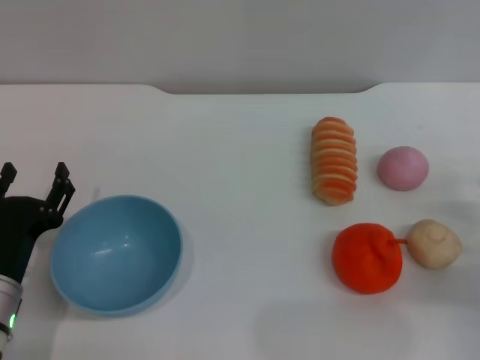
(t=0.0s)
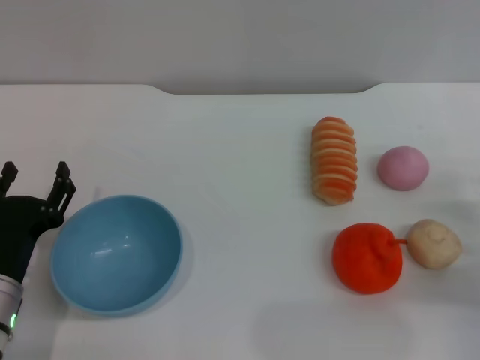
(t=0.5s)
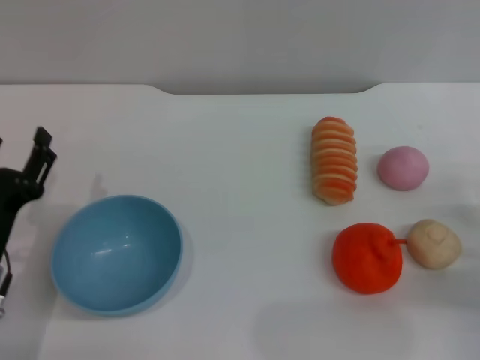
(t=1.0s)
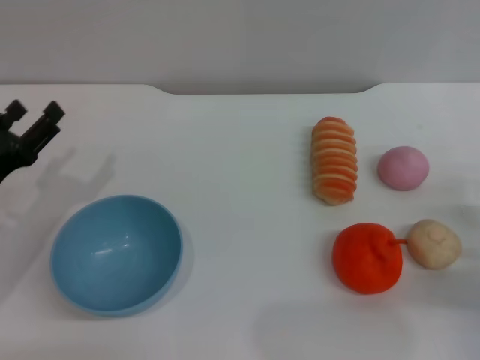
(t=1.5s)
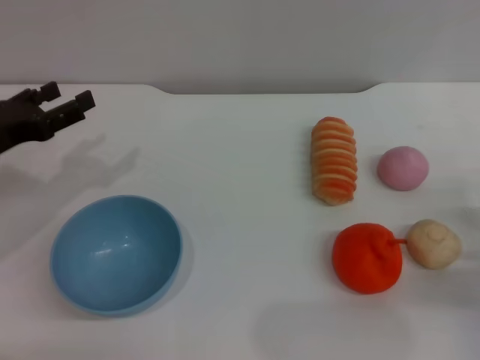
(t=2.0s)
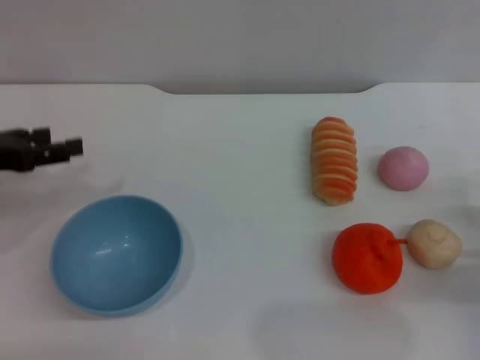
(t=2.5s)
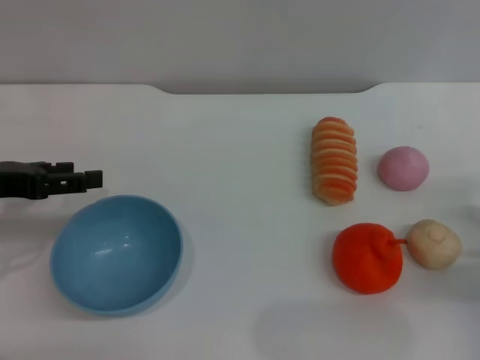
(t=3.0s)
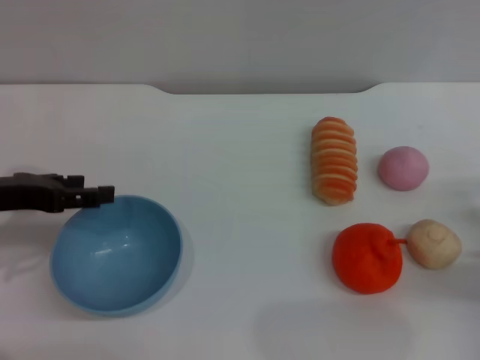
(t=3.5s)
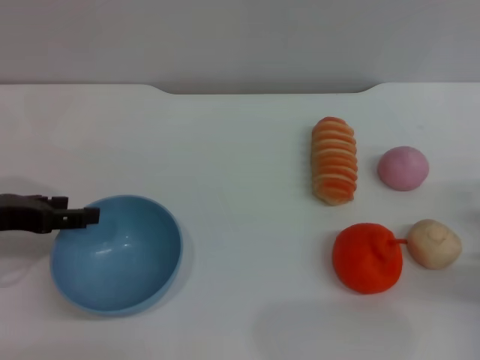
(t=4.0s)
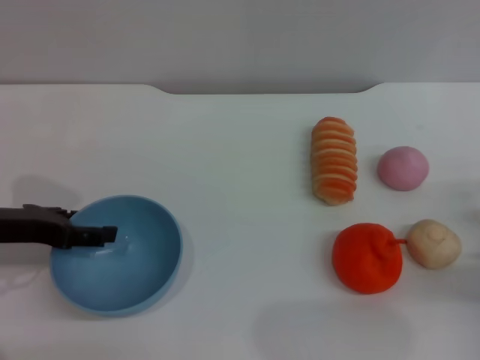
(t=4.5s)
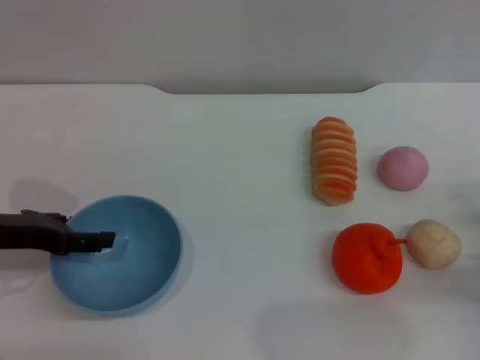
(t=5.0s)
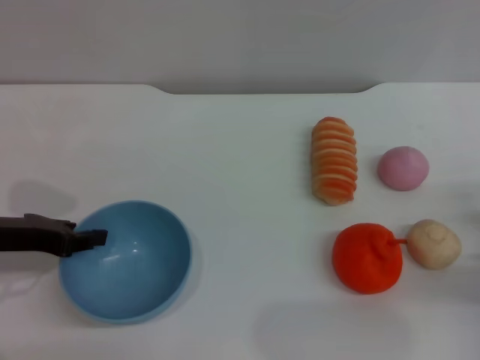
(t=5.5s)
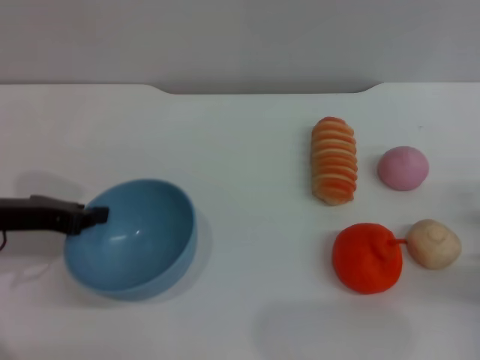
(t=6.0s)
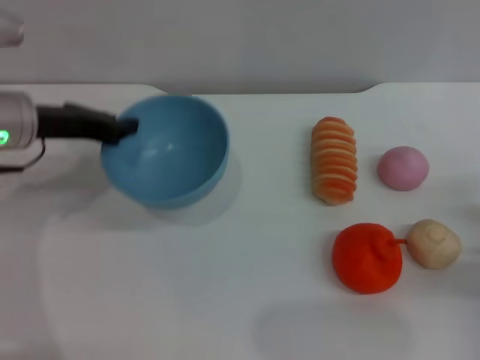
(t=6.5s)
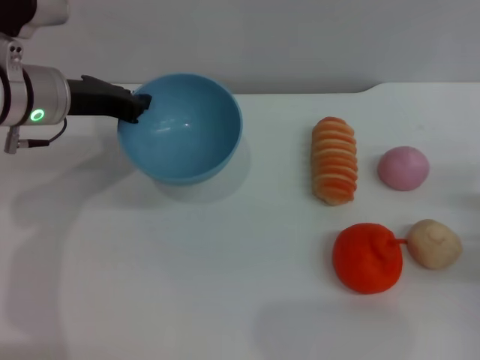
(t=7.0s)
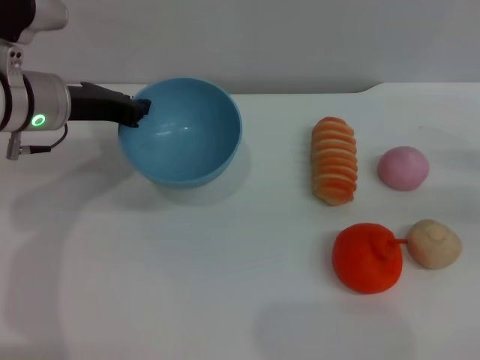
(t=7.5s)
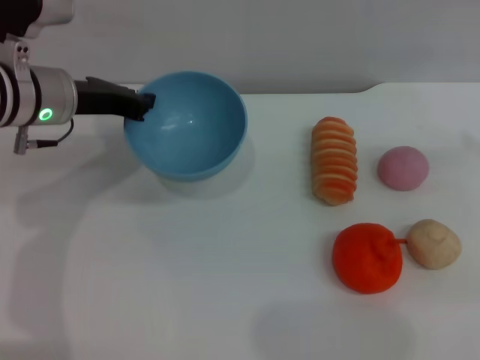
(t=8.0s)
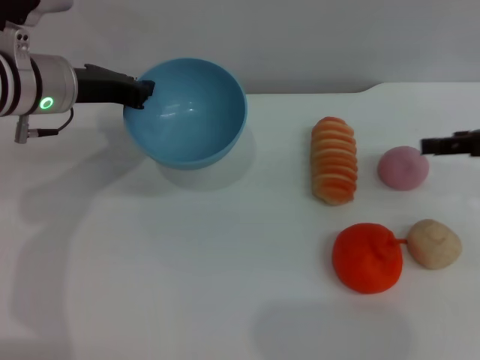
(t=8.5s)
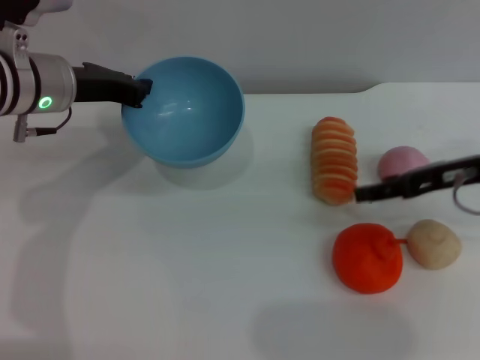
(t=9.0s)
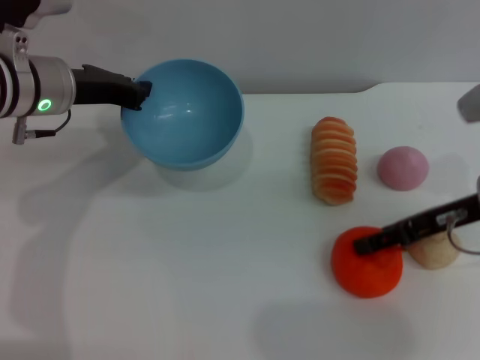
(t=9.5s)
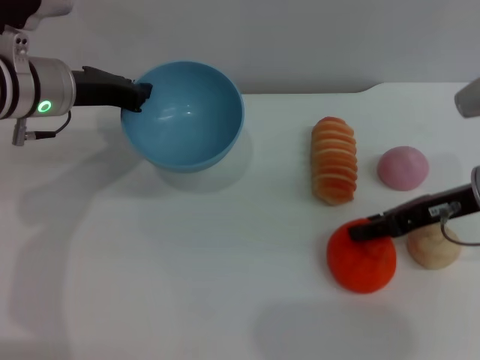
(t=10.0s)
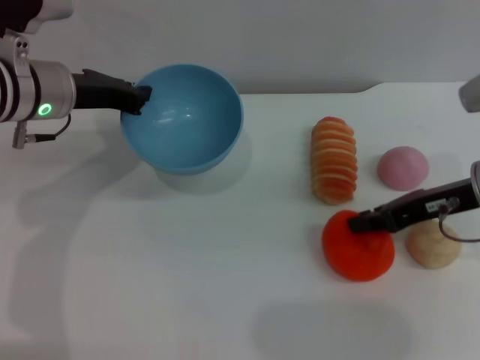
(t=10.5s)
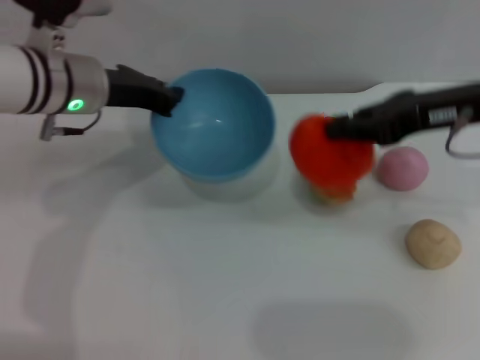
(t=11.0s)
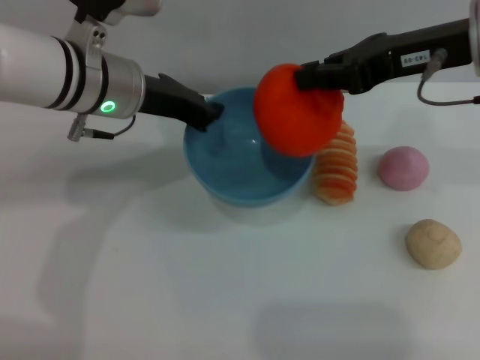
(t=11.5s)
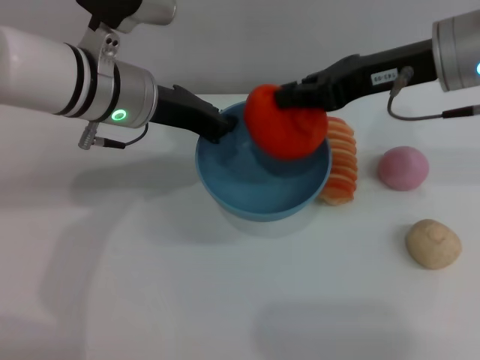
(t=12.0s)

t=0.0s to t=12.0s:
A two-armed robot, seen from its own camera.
Task of the whole recording: put the orange into the blue bowl and pour it out repeatedly.
Step, t=0.0s to t=6.0s: Pick up the bowl with the left gripper.
Step, t=6.5s to t=10.5s: Pick up the orange with the right gripper.
t=0.0s to t=2.0s: The left gripper moves forward, upward and to the left, about 15 cm.
t=4.0s to t=6.0s: The left gripper closes.
t=6.0s to t=8.0s: The right gripper shifts approximately 20 cm upward and forward. Meanwhile the left gripper goes roughly 10 cm forward and to the right.
t=8.0s to t=10.0s: The right gripper heads to the left, covering some 15 cm.
t=10.0s to t=12.0s: The left gripper moves to the right, about 10 cm, while the right gripper moves upward and to the left, approximately 15 cm, and closes up.

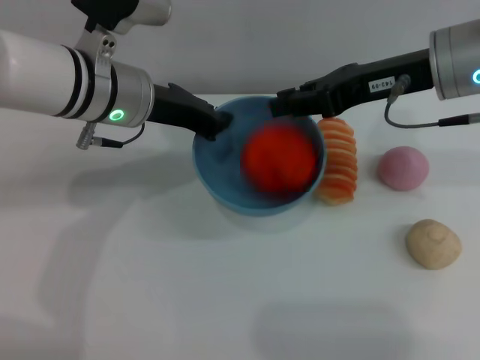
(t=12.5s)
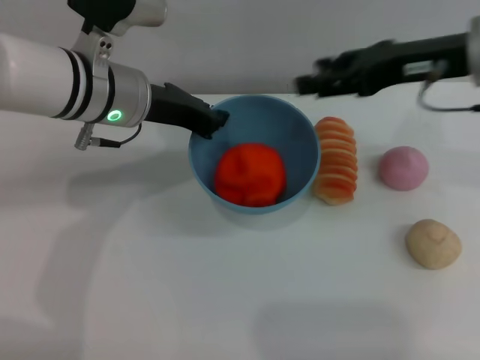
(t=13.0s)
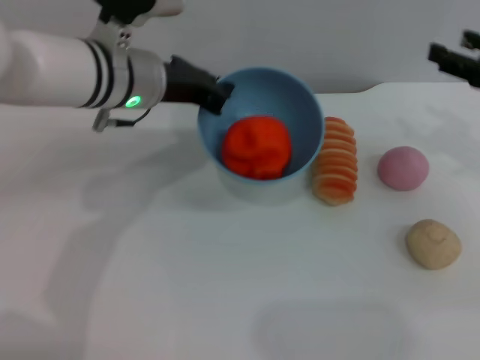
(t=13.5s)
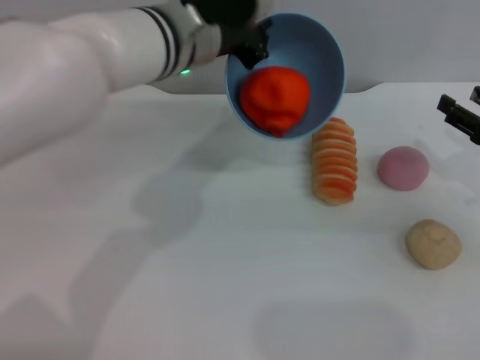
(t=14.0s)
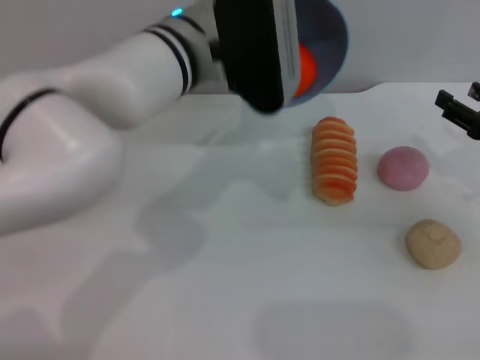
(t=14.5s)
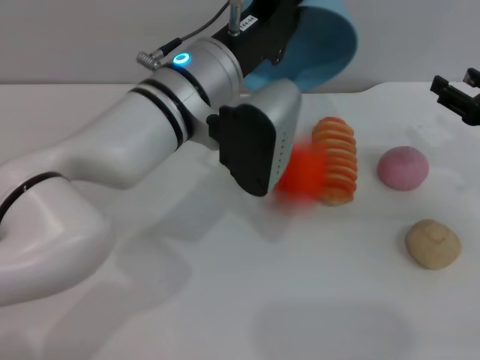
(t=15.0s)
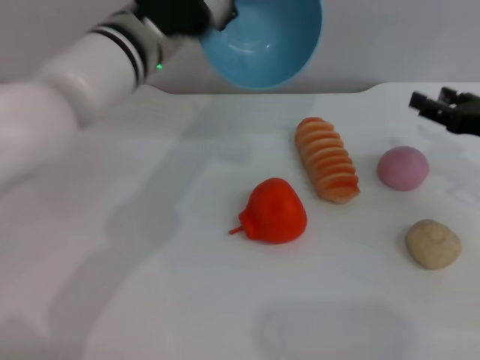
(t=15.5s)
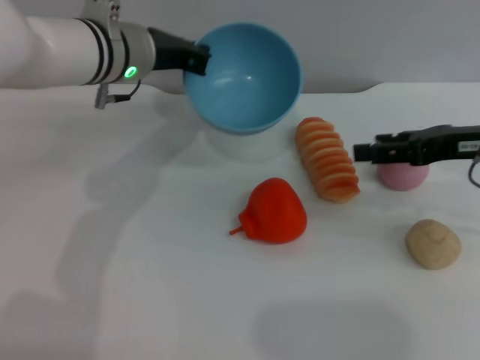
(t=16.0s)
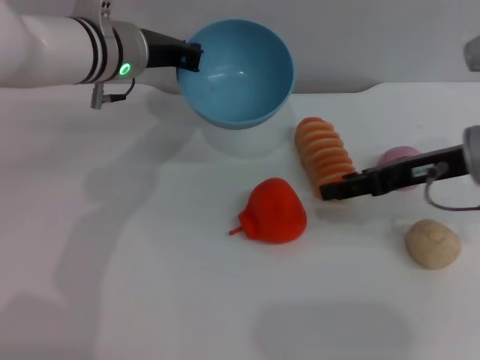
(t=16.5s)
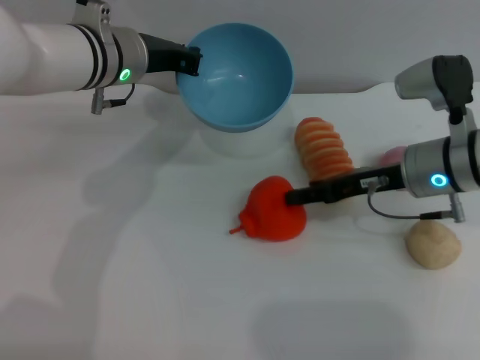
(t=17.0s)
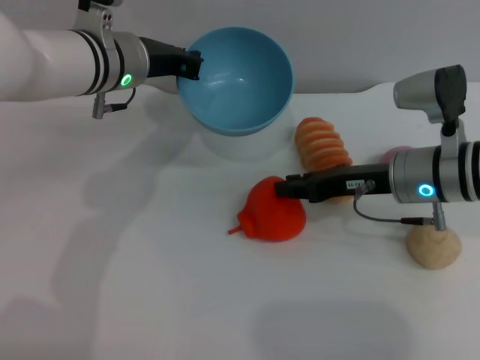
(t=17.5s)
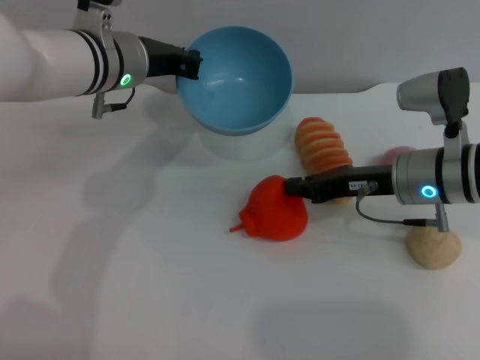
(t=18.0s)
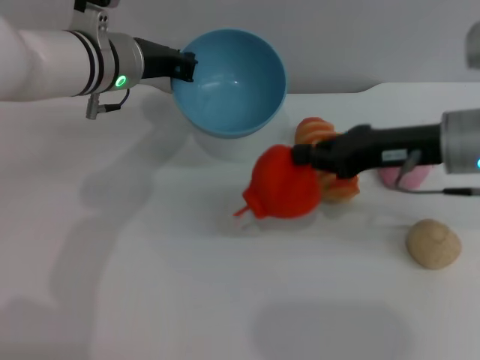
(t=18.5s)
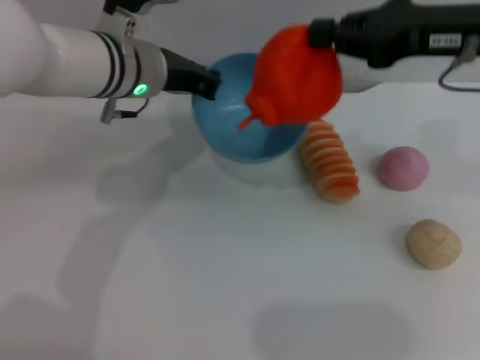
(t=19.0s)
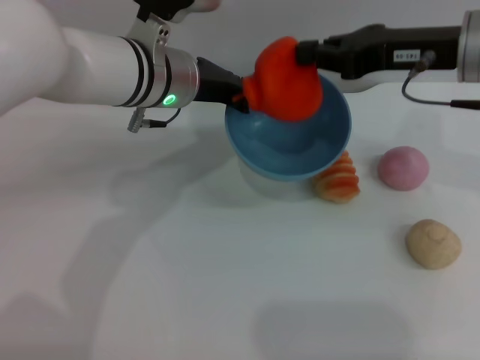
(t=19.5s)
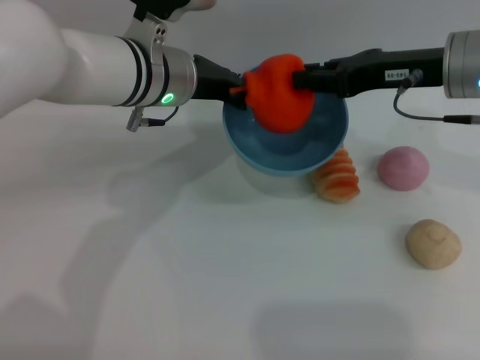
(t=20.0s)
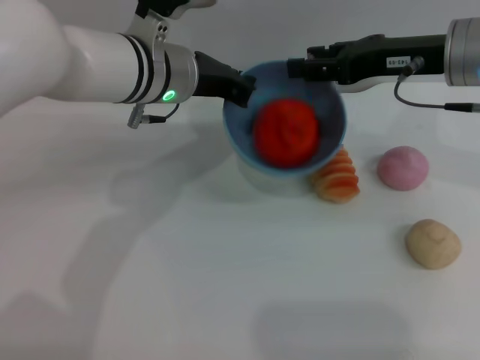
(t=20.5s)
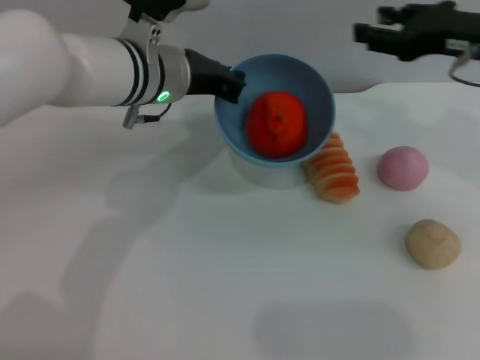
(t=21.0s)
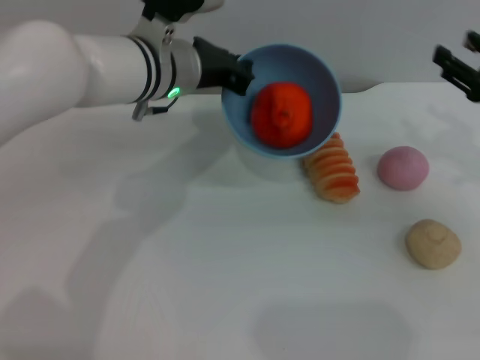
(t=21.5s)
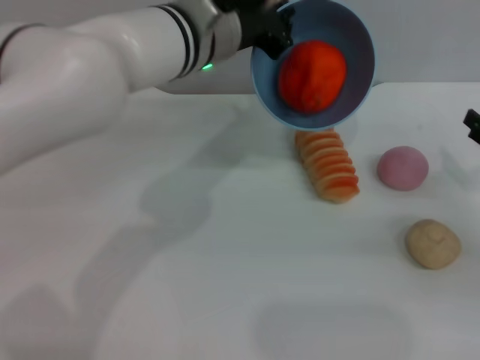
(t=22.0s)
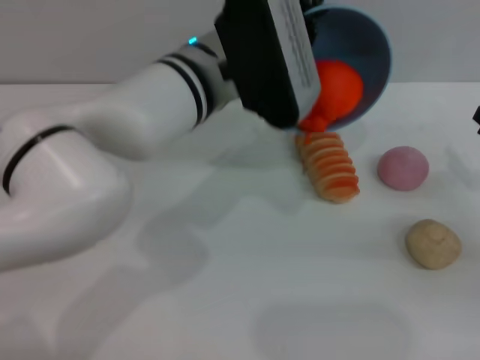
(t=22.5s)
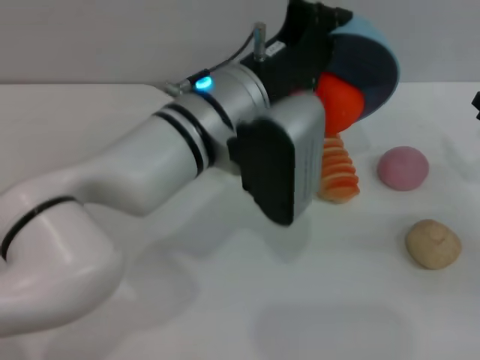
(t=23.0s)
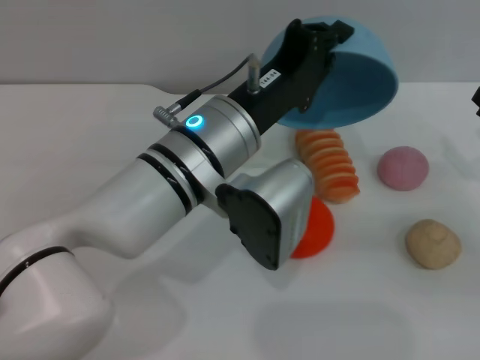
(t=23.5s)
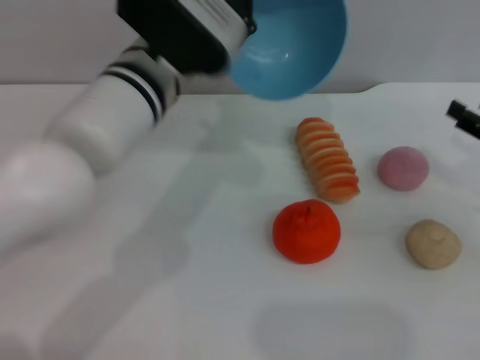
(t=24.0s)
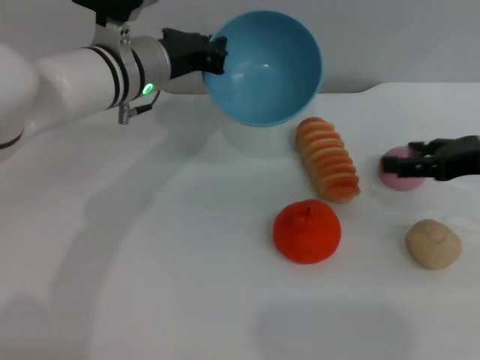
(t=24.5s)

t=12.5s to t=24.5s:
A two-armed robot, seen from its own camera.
Task of the whole recording: put the orange into the blue bowl and pour it out repeatedly.
Step, t=13.0s to t=15.5s: Pour the orange out of the bowl.
Step, t=16.0s to t=18.5s: Pick up the orange with the right gripper.
Step, t=19.0s to t=20.5s: Place the orange into the bowl.
Step, t=21.0s to t=23.5s: Pour the orange out of the bowl.
t=12.5s to t=14.5s: The left gripper heads to the right, covering some 10 cm; the right gripper moves to the right and downward, roughly 20 cm, and opens.
t=14.5s to t=16.5s: The left gripper heads to the left and forward, covering some 10 cm; the right gripper moves to the left and upward, some 10 cm.
t=16.5s to t=18.5s: The right gripper closes its fingers.
t=18.5s to t=20.5s: The right gripper moves about 5 cm, and opens its fingers. Meanwhile the left gripper moves about 5 cm.
t=20.5s to t=22.5s: The left gripper moves to the right, some 5 cm. The right gripper moves to the right, downward and backward, about 25 cm.
t=22.5s to t=24.5s: The left gripper heads to the left and forward, covering about 10 cm. Meanwhile the right gripper heads upward and to the left, covering about 10 cm.

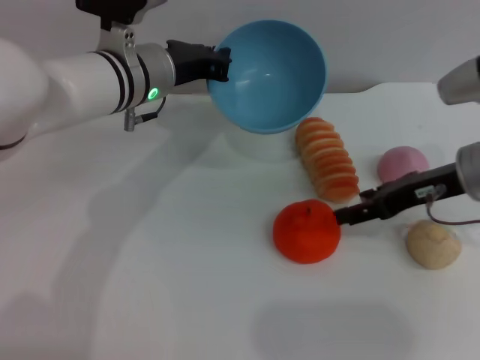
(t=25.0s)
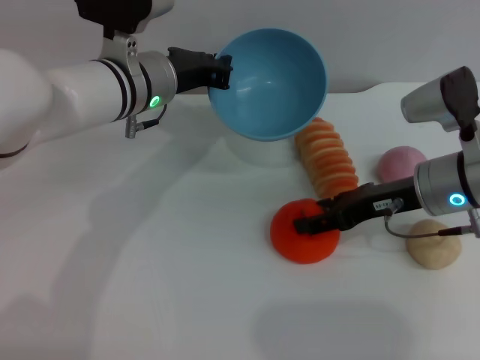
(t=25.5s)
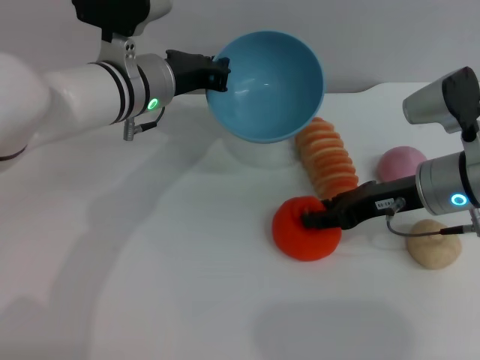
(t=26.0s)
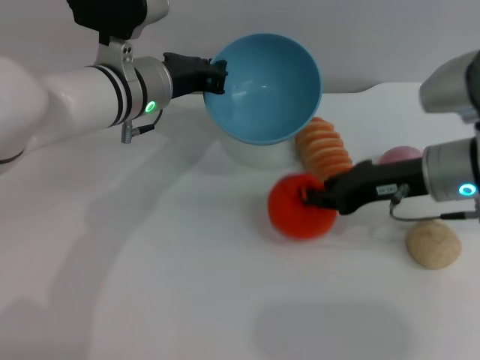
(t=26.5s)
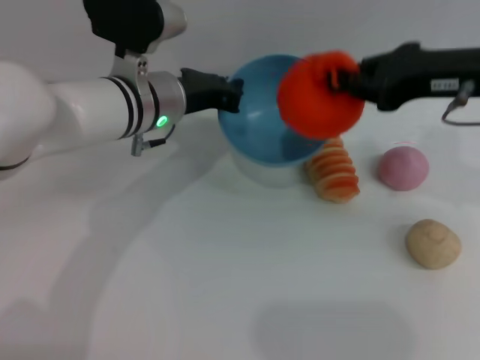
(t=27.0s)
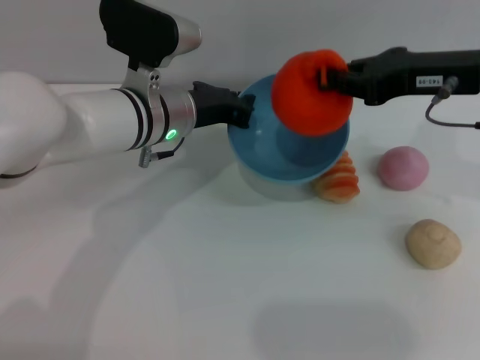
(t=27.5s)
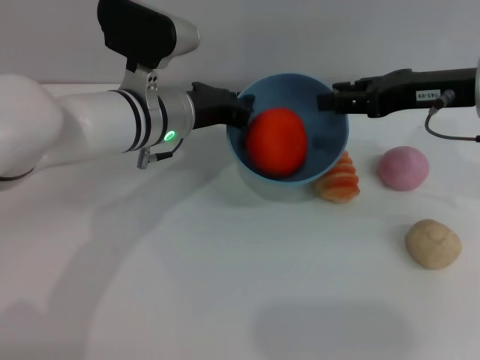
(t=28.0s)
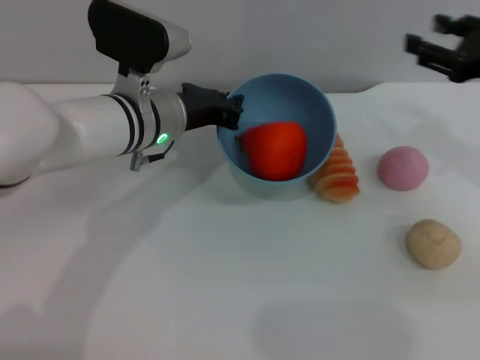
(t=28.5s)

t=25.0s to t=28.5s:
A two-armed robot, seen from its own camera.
Task of the whole recording: put the orange into the blue bowl and pour it out repeatedly.
Step, t=27.0s to t=28.0s: Place the orange into the bowl.
t=25.0s to t=27.0s: The right gripper goes approximately 10 cm upward, and closes.
t=27.0s to t=28.5s: The right gripper travels to the right by about 5 cm, and opens up.
